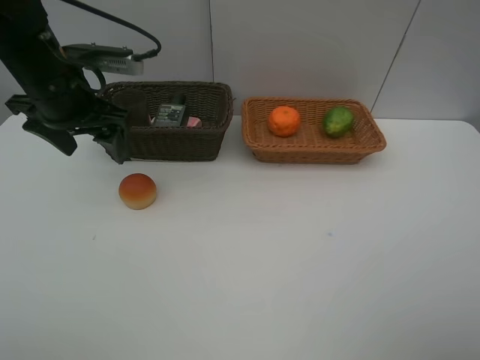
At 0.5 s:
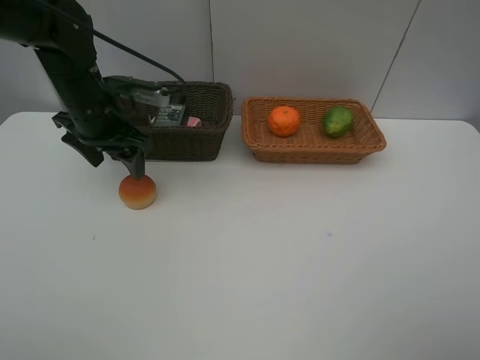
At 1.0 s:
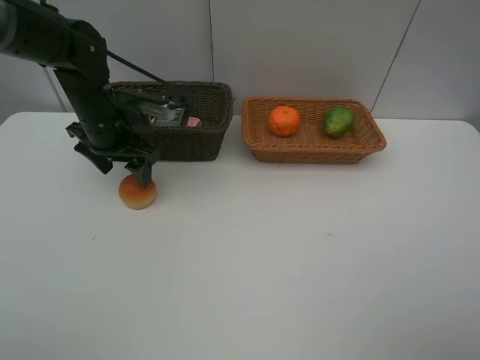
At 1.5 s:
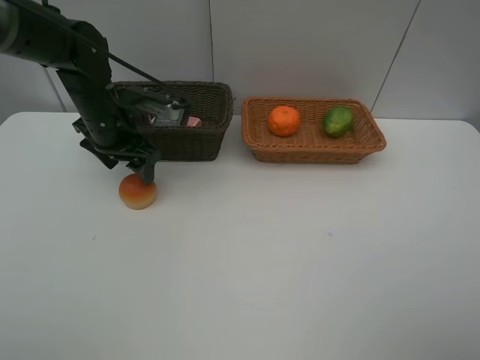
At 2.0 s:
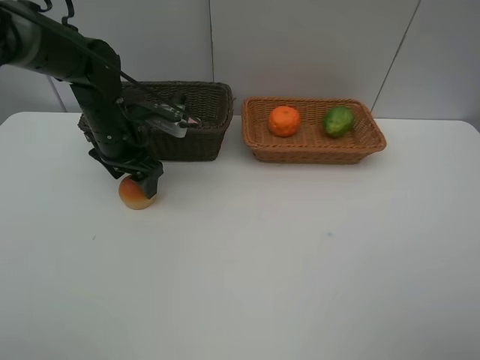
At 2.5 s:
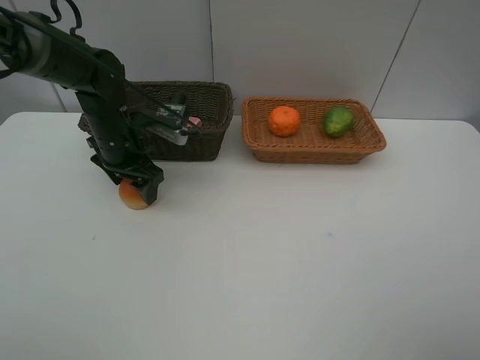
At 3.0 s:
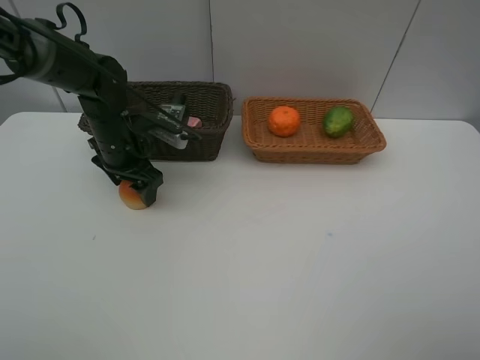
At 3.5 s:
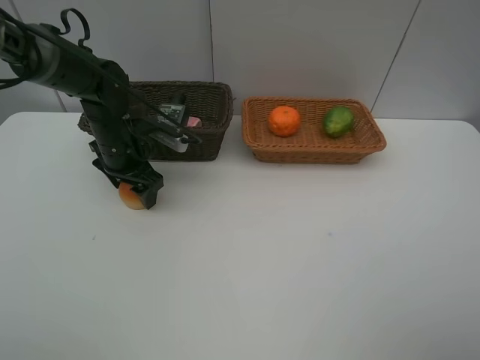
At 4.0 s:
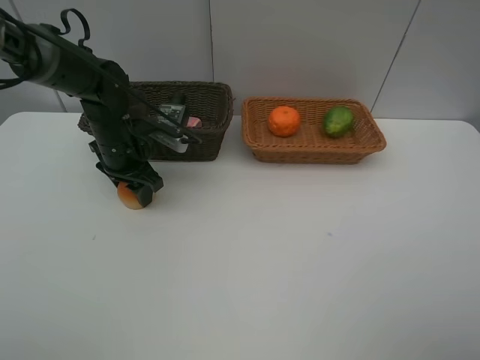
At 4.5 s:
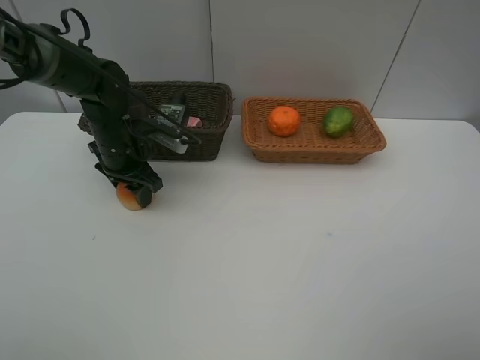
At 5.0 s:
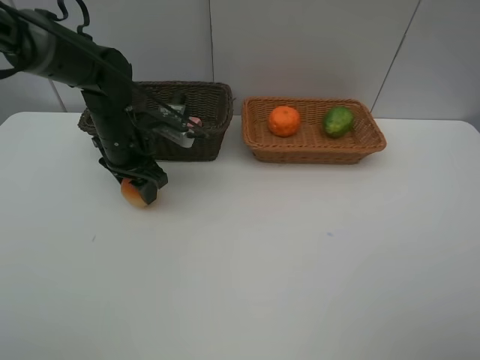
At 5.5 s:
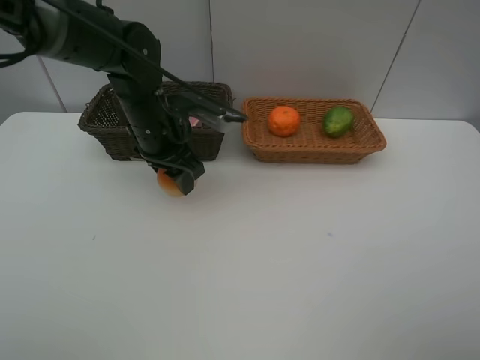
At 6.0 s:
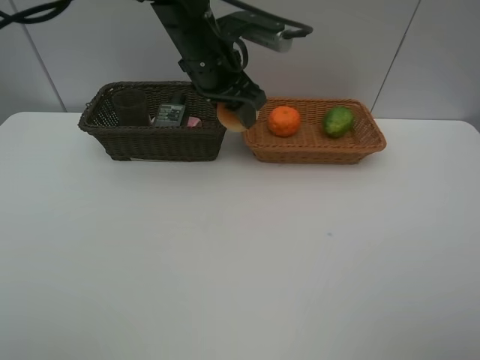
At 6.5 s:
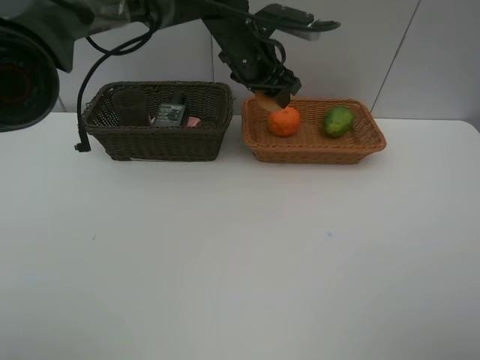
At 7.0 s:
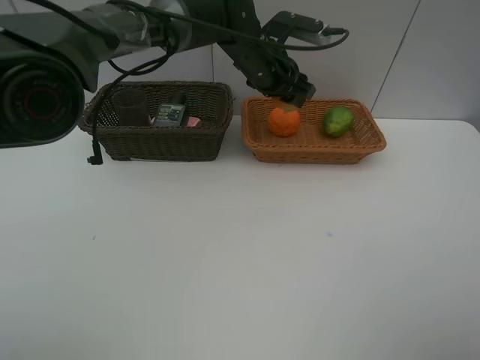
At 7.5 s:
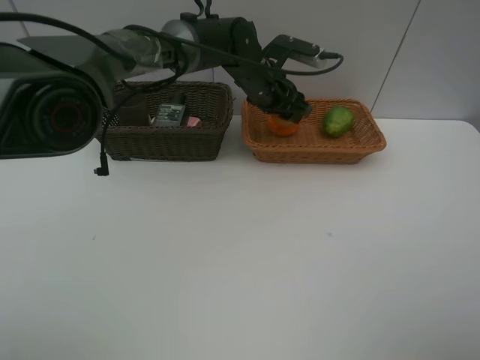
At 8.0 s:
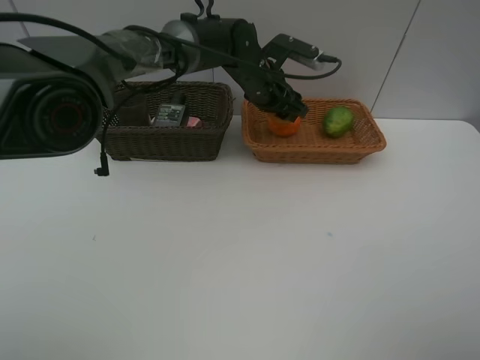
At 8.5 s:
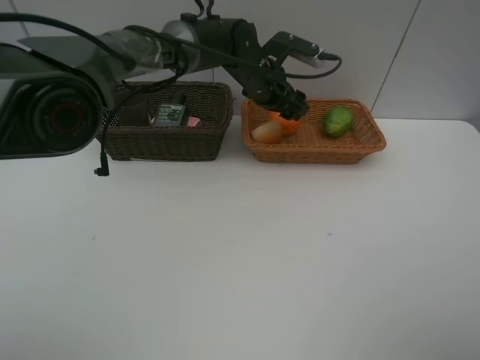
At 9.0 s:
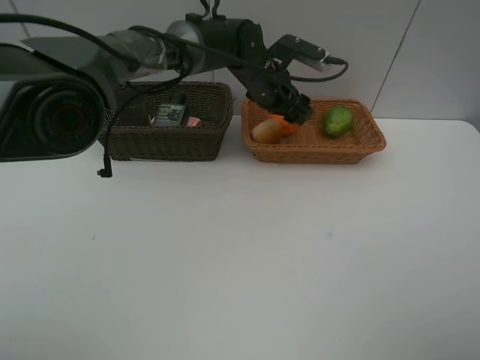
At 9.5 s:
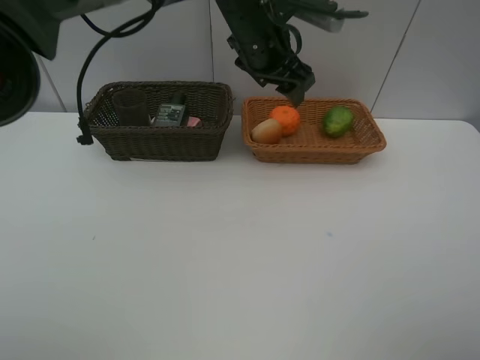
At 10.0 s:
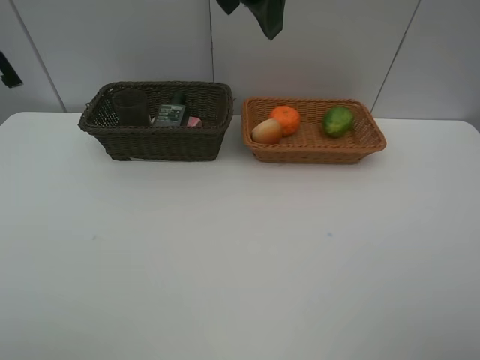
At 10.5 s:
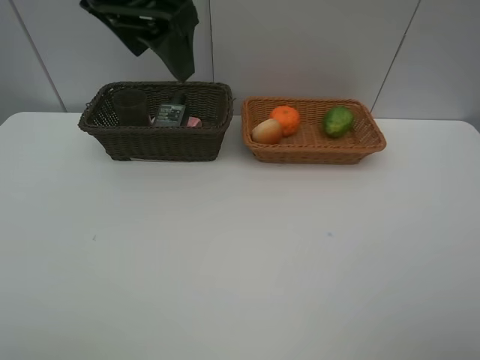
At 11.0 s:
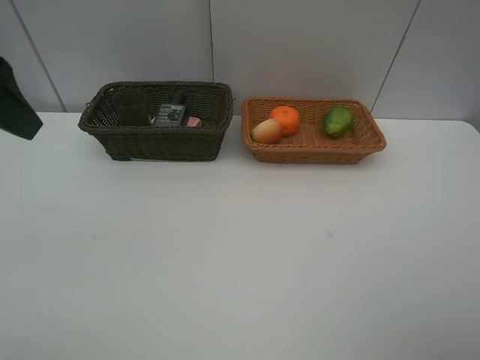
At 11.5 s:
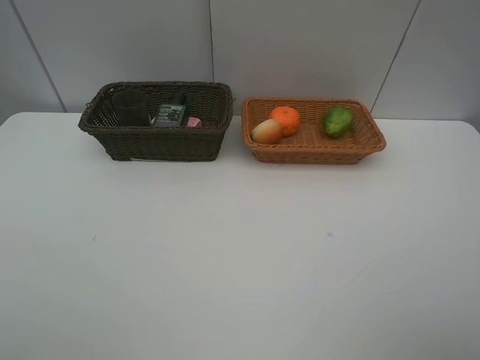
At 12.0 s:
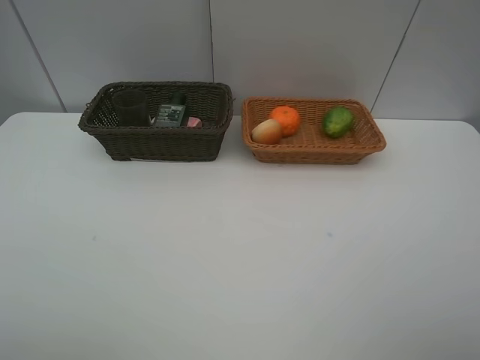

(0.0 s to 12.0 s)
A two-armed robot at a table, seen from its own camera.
Task of the whole recording: place multiple objects separately in different baskets.
0.0 s - 2.0 s: The left gripper goes roughly 10 cm downward.
2.0 s - 4.0 s: There are only small adjustments of the grippers.
4.0 s - 6.0 s: The left gripper moves to the right and upward, about 20 cm.
6.0 s - 8.0 s: The left gripper is displaced downward, forward and to the right by roughly 10 cm.
8.0 s - 10.0 s: The left gripper goes roughly 25 cm upward and backward.
10.0 s - 12.0 s: The left gripper travels backward and to the left by roughly 40 cm.

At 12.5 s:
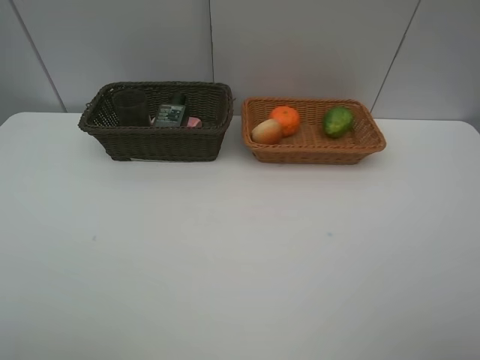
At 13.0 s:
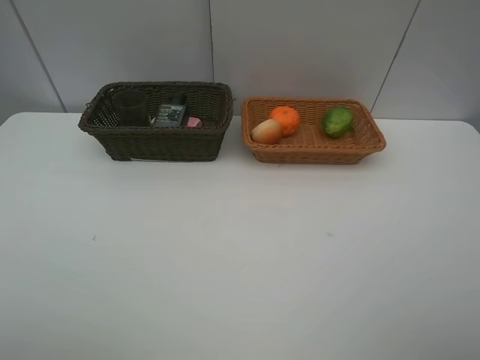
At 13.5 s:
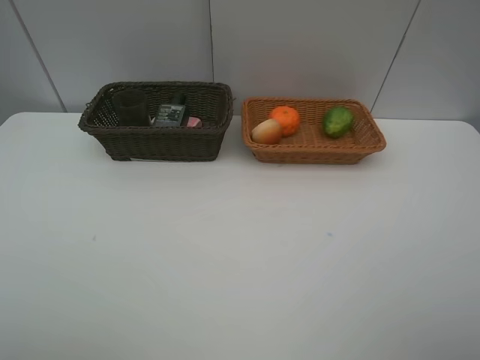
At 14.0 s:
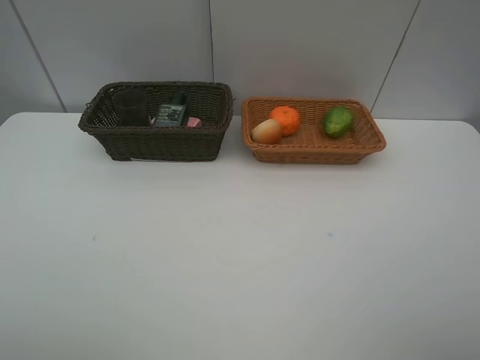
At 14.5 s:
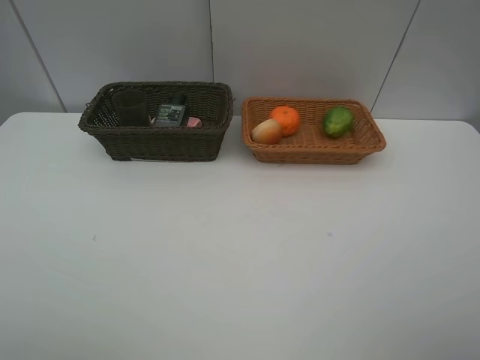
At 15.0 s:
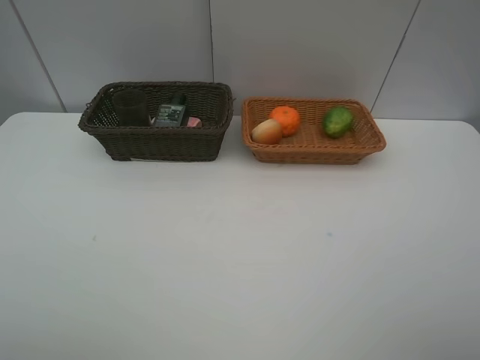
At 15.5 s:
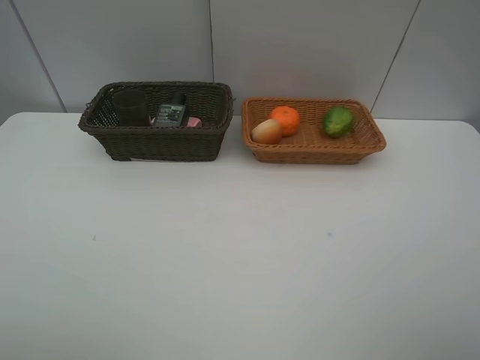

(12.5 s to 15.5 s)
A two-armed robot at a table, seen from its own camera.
Task of the whole recording: place multiple objects separately in different baskets.
14.0 s - 15.5 s: Both grippers stay about where they are.
